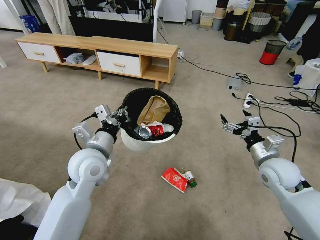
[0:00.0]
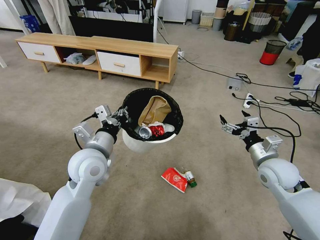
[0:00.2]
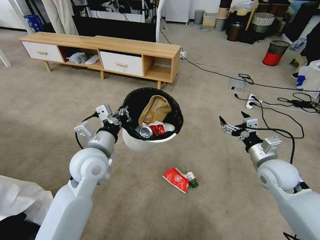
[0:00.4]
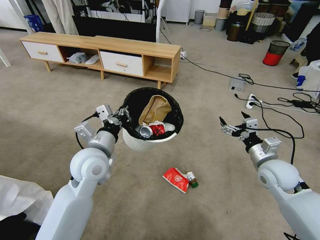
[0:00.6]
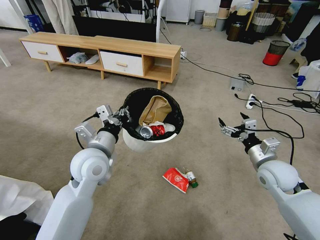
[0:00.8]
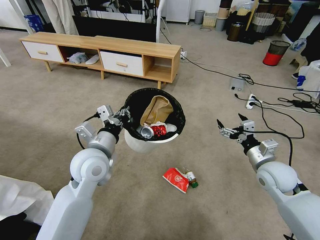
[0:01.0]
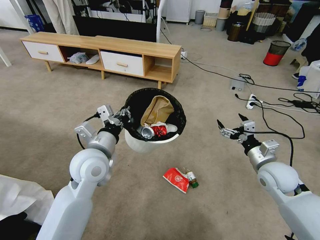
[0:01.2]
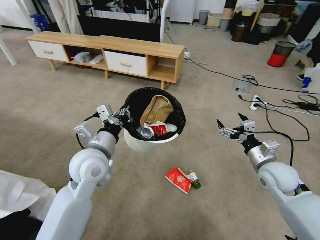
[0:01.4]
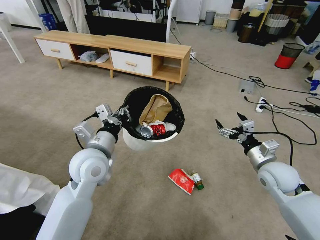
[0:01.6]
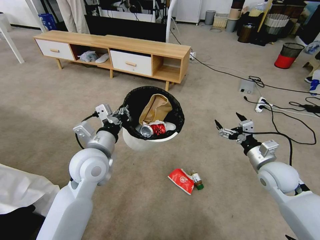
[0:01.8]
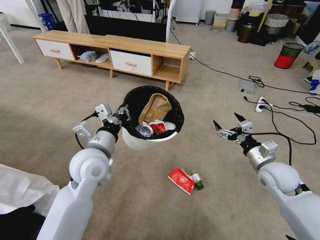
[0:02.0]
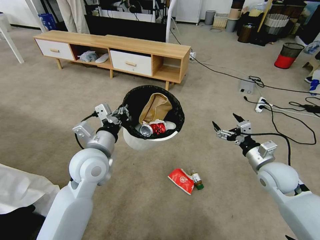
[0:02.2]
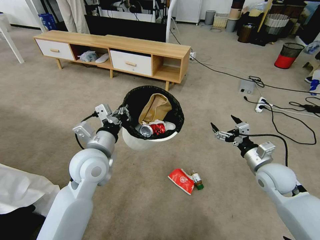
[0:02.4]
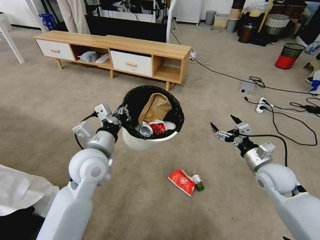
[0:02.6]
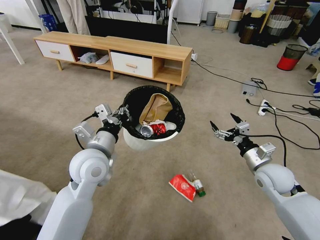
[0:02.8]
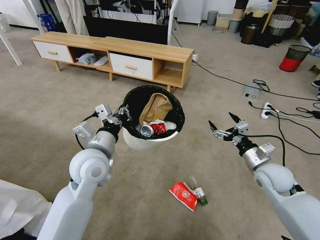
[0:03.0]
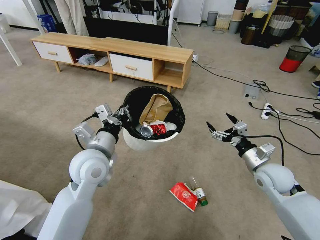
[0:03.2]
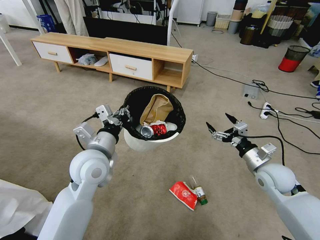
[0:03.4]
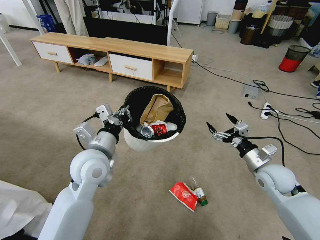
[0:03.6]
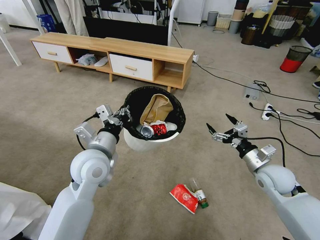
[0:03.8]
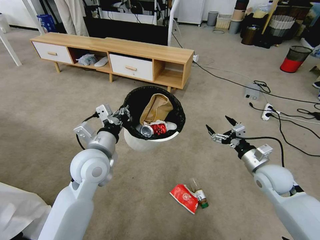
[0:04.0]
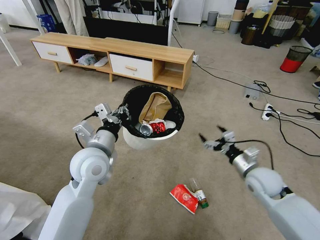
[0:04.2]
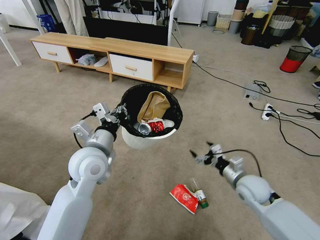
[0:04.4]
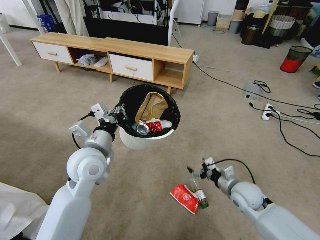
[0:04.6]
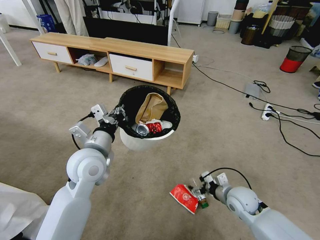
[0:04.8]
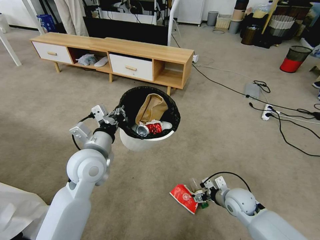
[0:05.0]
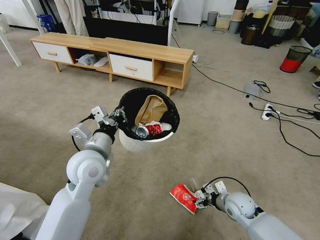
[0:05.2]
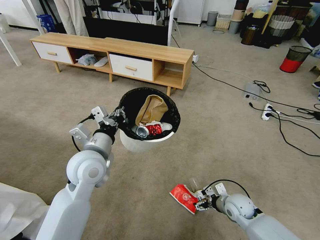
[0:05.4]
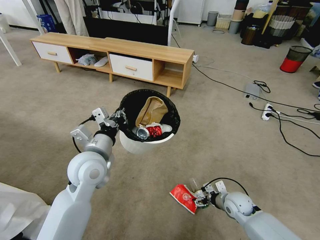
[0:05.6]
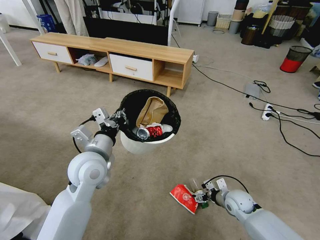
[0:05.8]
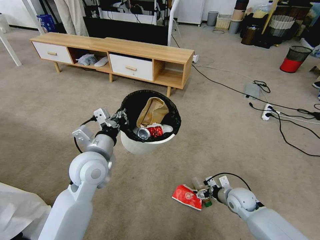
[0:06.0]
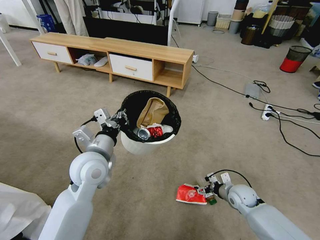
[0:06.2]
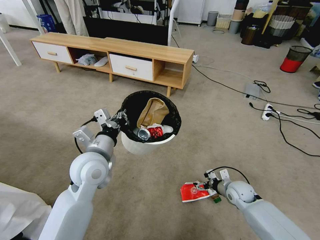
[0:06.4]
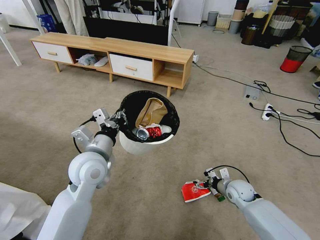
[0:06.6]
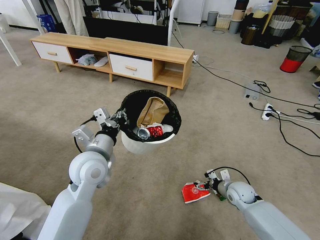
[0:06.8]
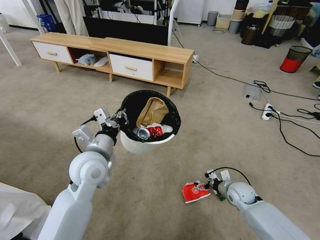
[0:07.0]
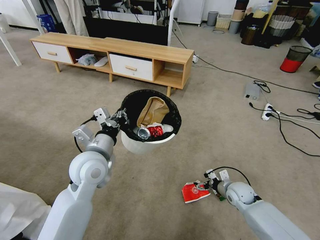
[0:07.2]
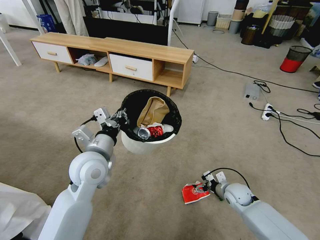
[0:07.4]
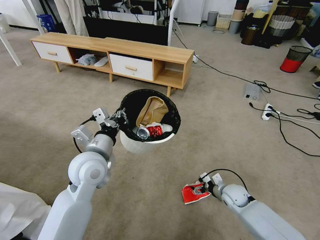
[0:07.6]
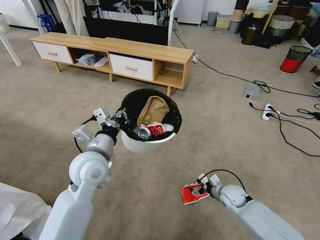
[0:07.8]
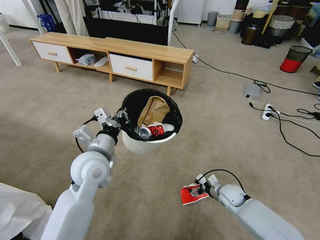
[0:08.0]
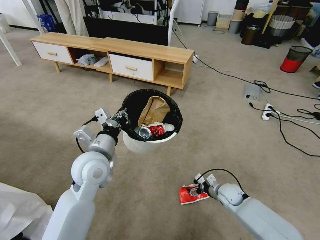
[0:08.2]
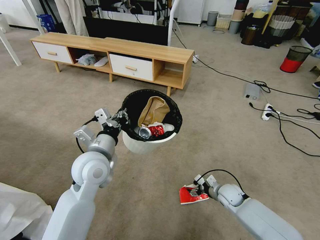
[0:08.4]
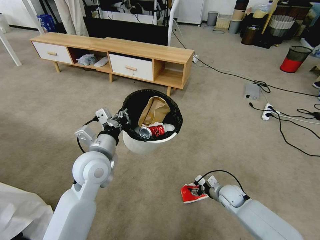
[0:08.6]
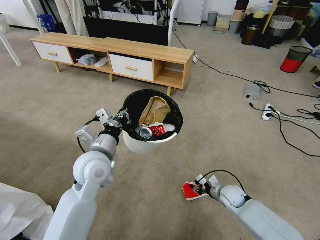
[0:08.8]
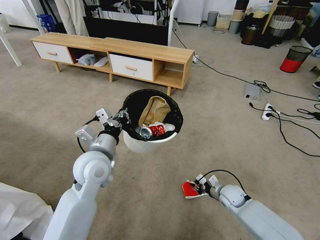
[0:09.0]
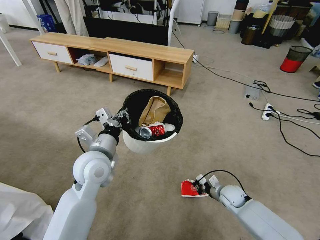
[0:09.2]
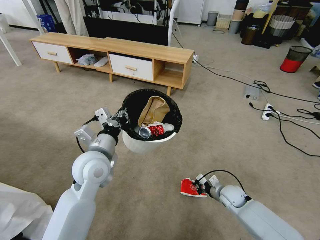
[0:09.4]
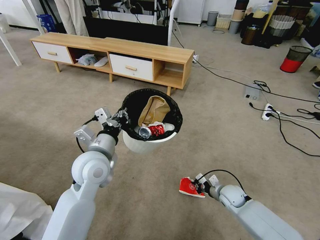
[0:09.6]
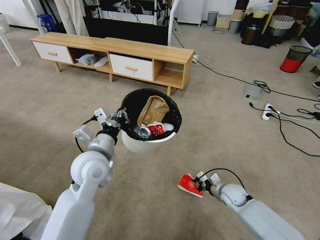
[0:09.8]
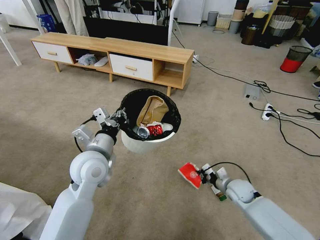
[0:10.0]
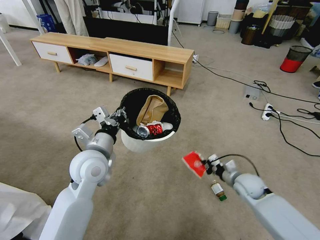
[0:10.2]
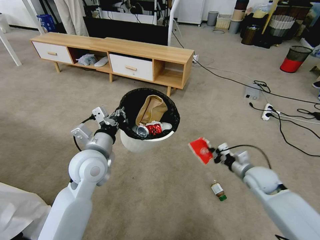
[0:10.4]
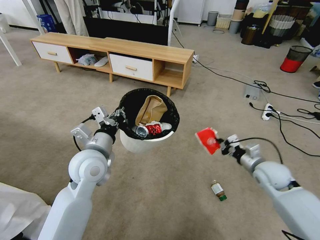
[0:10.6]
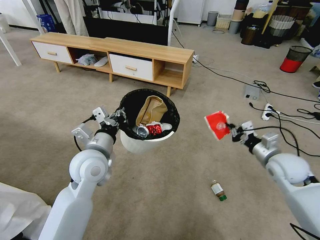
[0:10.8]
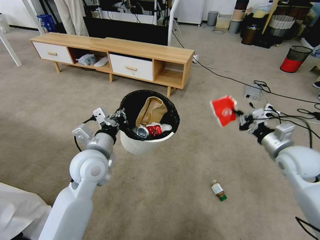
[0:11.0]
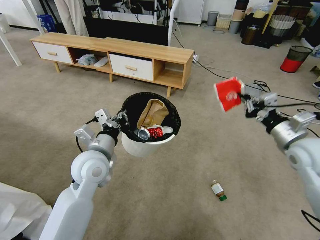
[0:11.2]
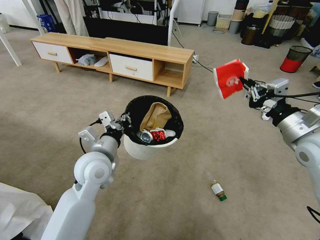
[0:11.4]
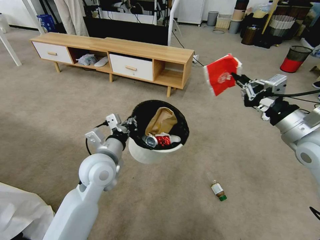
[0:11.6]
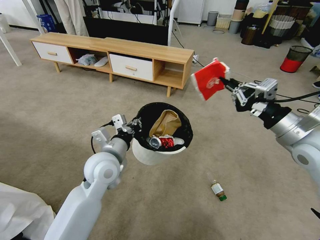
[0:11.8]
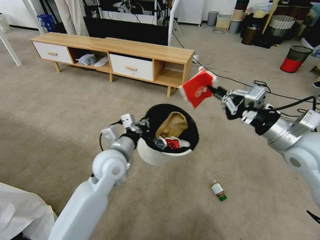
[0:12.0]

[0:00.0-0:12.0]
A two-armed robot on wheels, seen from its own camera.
Task of the whole recording: Pick up the trash bin and place the garbage on the floor into it.
0:03.0 to 0:04.4: The right gripper moves approximately 5 cm.
0:04.4 to 0:06.0: The right gripper moves downward, some 10 cm.
0:06.0 to 0:07.6: The grippers move only a little.
0:07.6 to 0:09.0: The right gripper closes.
0:09.0 to 0:10.4: The right gripper heads upward, covering roughly 15 cm.
0:10.4 to 0:12.0: The right gripper travels upward by about 25 cm; the left gripper goes some 5 cm to the right.

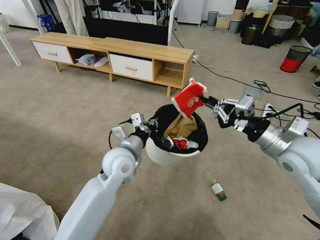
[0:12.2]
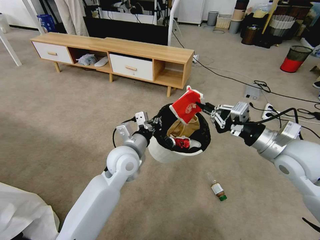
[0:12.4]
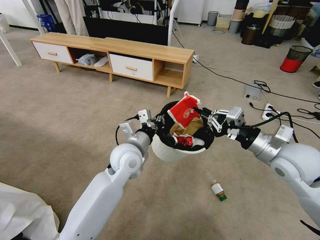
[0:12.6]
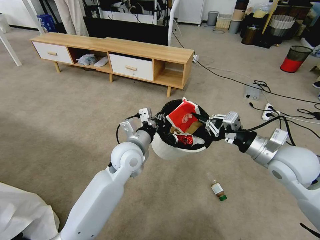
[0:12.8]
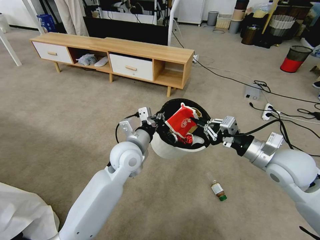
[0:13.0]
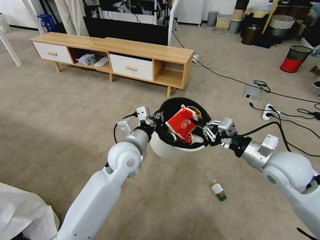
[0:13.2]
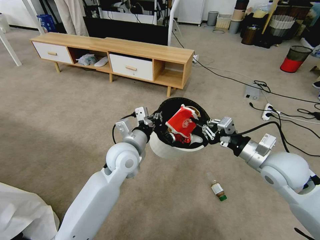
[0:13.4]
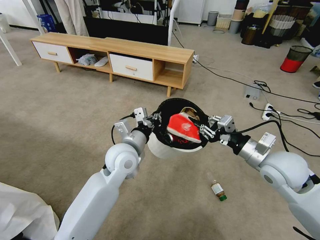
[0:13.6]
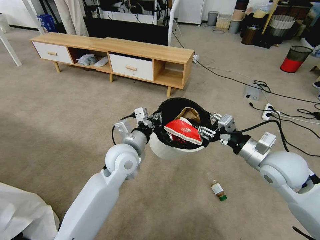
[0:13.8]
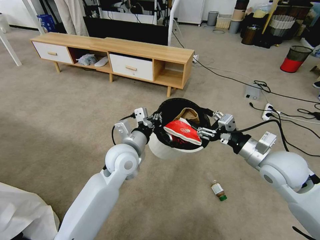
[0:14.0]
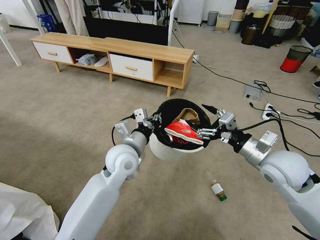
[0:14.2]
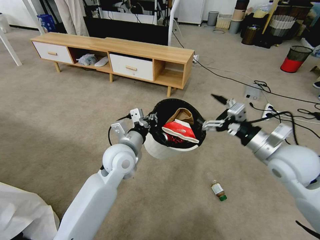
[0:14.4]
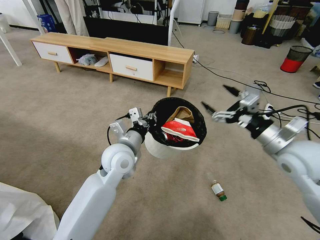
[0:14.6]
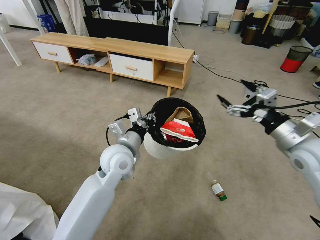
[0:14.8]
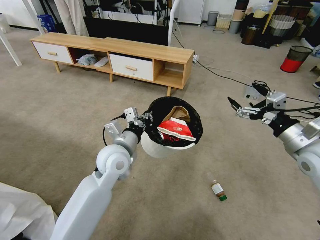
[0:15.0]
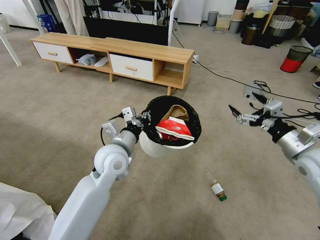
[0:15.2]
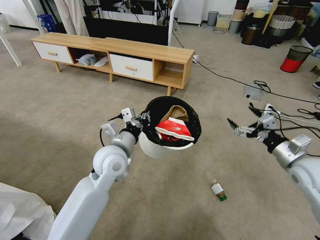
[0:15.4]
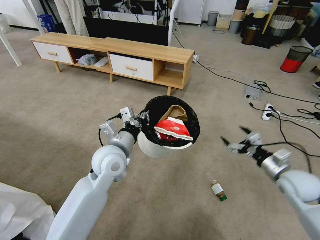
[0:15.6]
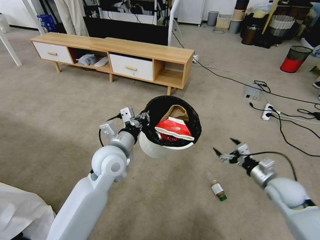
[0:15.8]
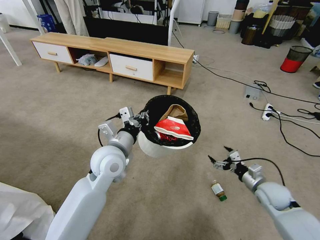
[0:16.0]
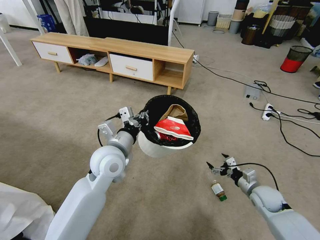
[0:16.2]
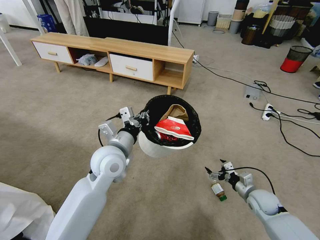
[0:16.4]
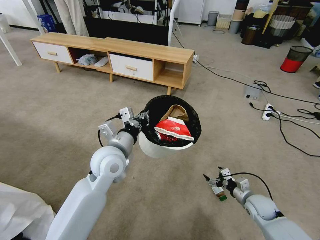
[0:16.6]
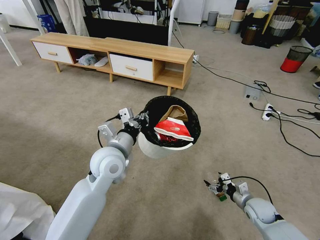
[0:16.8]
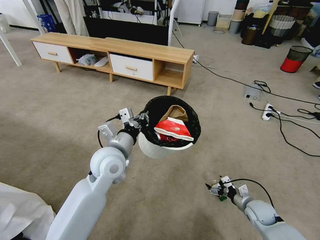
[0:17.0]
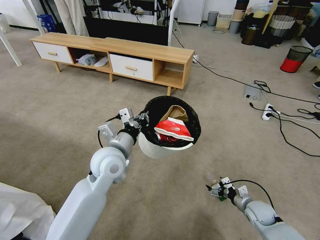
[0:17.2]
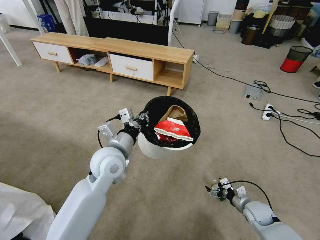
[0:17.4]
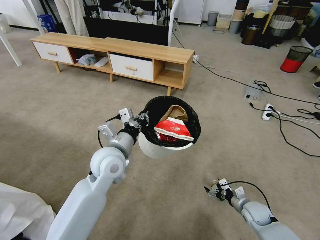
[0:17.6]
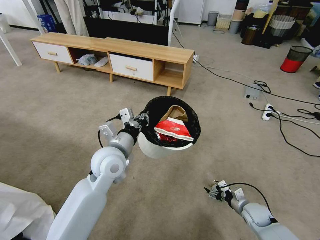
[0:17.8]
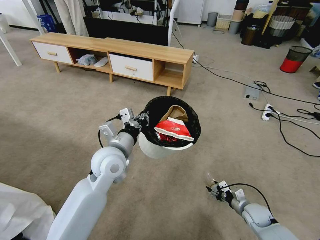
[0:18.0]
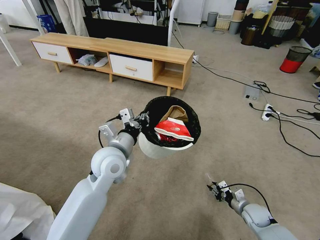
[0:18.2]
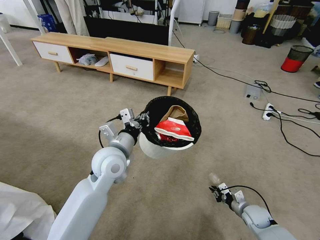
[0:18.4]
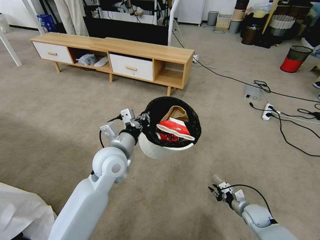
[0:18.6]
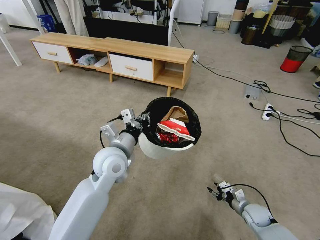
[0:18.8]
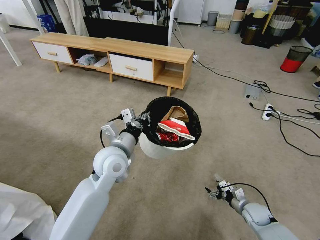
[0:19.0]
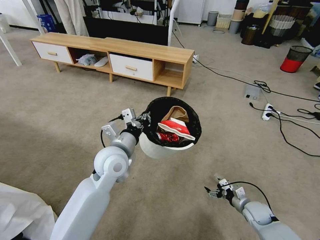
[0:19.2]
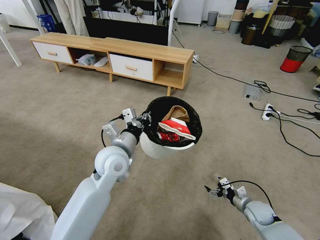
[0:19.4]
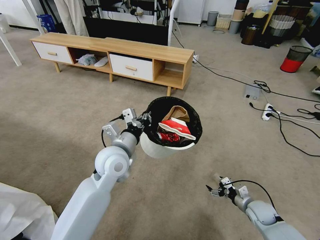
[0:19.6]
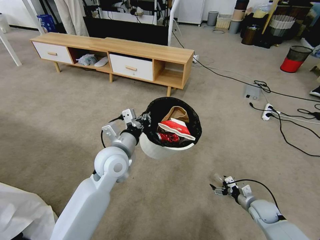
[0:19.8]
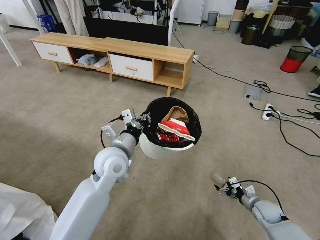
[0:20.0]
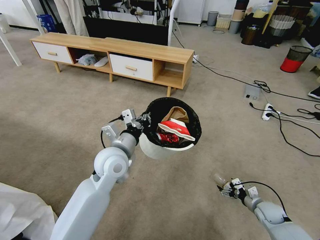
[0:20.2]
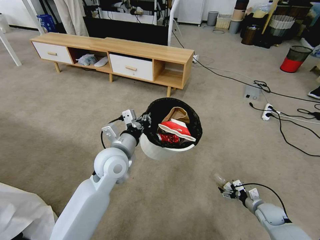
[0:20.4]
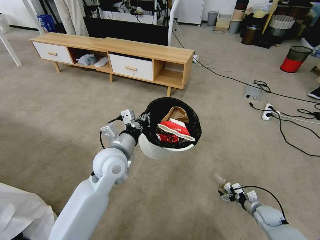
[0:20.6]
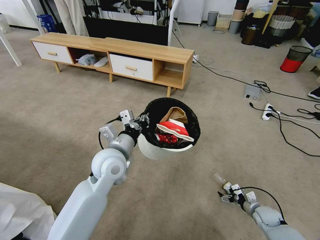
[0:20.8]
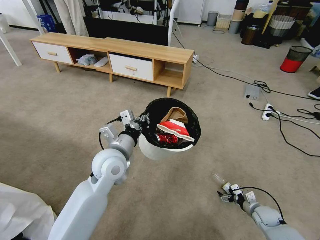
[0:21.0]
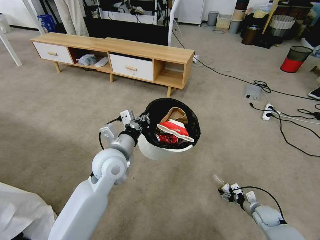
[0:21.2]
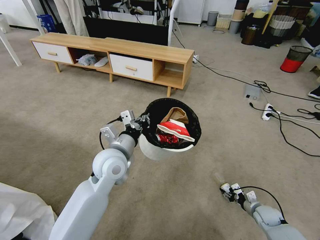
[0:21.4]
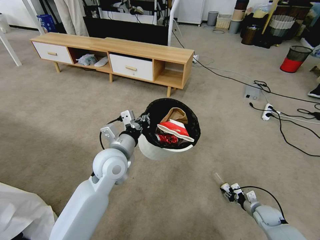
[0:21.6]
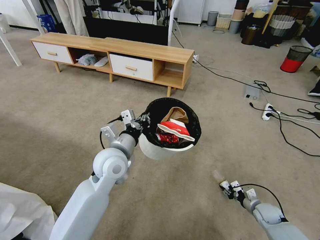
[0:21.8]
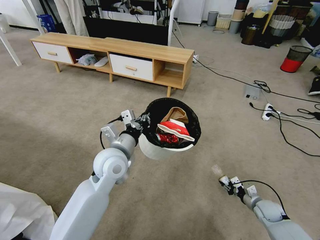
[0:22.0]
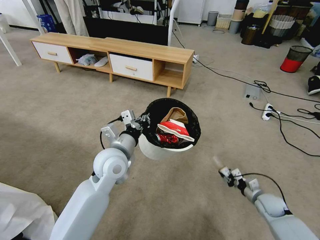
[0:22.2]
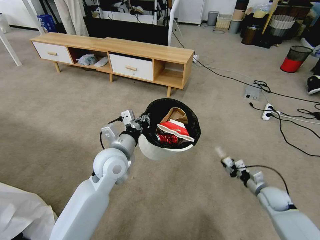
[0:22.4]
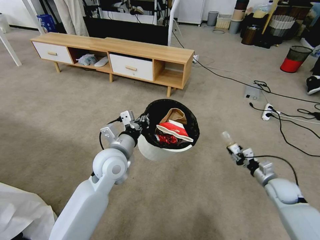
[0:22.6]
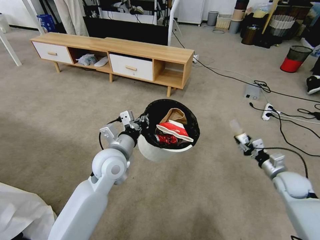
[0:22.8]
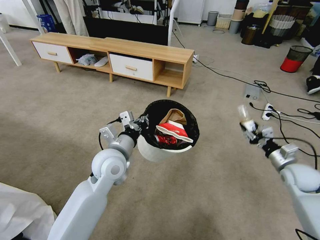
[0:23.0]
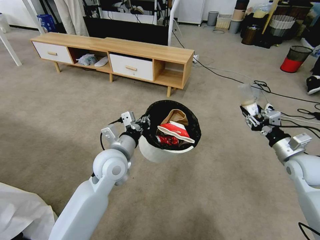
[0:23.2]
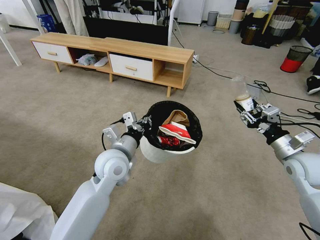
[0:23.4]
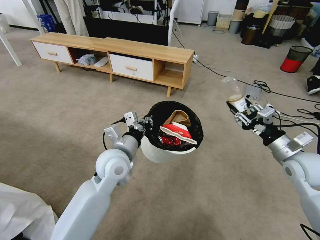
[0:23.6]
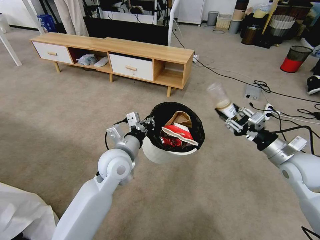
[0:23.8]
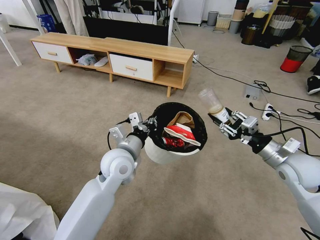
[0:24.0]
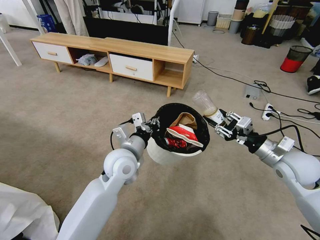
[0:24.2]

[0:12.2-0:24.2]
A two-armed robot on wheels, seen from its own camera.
Task of the whole recording: Pick up the trash bin and place the garbage on the floor into it.
0:12.2 to 0:13.8: The right gripper shifts about 5 cm downward, and opens up.
0:13.8 to 0:15.2: The right gripper moves to the right, about 10 cm, and opens its fingers.
0:15.2 to 0:16.6: The right gripper travels downward by about 25 cm.
0:16.6 to 0:18.2: The right gripper is displaced downward by about 5 cm, and closes.
0:18.2 to 0:19.8: The right gripper opens.
0:19.8 to 0:21.2: The right gripper is displaced downward by about 5 cm.
0:21.2 to 0:22.6: The right gripper travels upward by roughly 15 cm, and closes its fingers.
0:22.6 to 0:24.2: The right gripper shifts approximately 20 cm upward and to the left.
